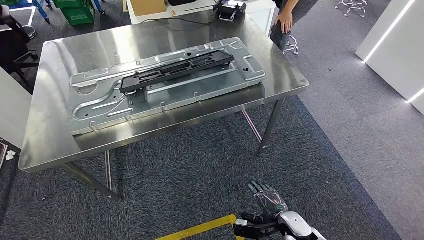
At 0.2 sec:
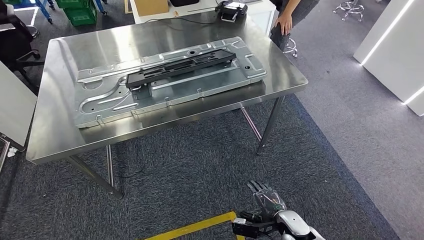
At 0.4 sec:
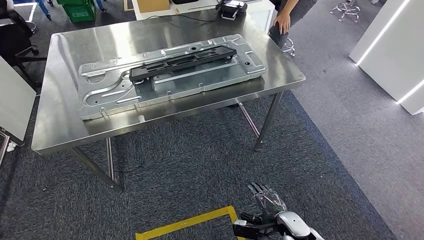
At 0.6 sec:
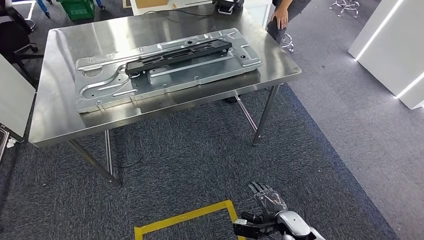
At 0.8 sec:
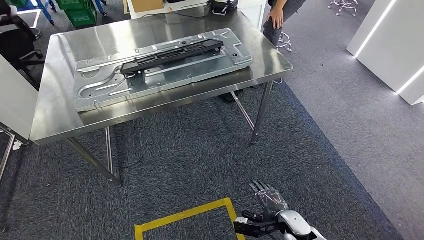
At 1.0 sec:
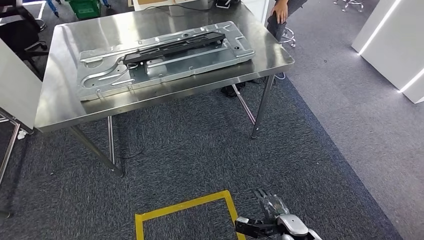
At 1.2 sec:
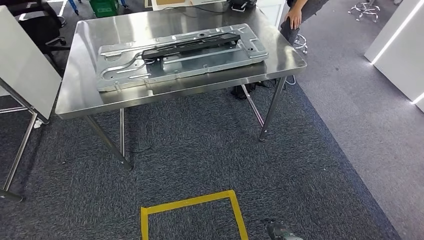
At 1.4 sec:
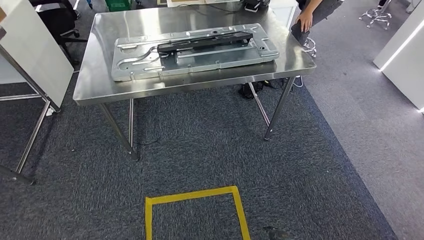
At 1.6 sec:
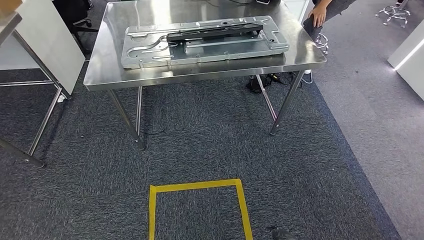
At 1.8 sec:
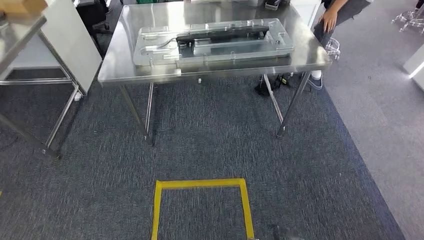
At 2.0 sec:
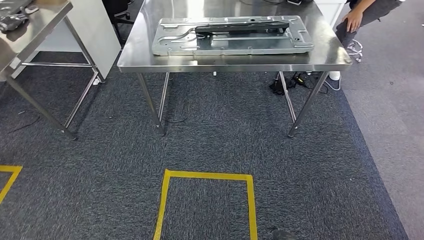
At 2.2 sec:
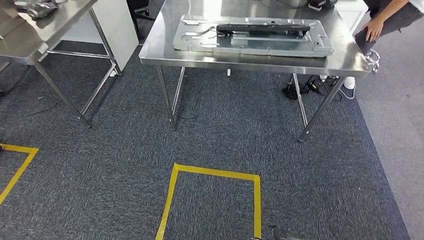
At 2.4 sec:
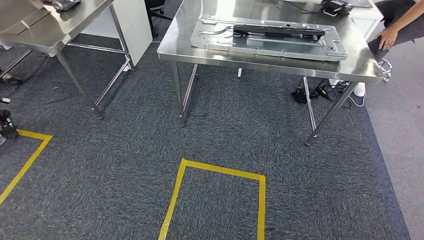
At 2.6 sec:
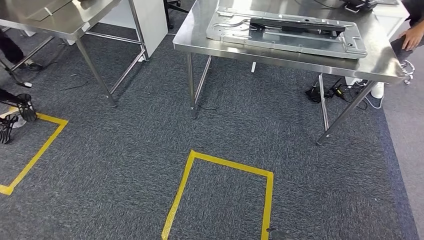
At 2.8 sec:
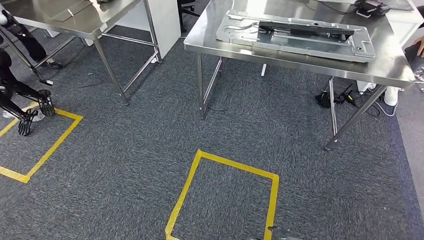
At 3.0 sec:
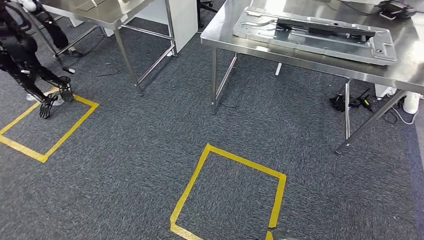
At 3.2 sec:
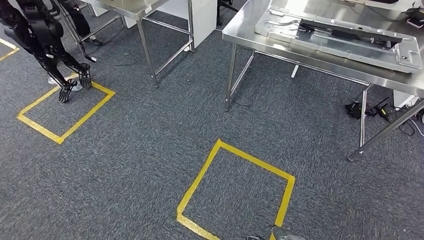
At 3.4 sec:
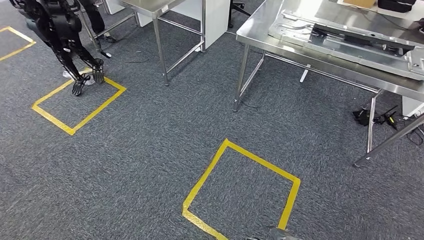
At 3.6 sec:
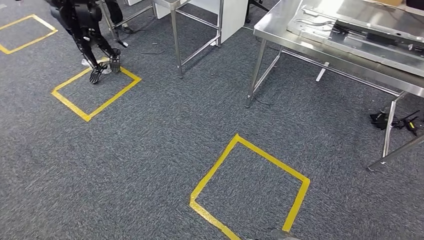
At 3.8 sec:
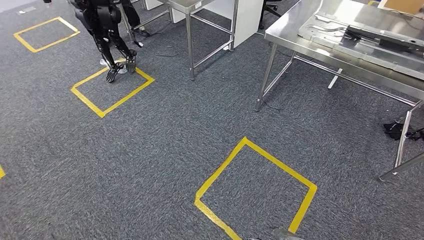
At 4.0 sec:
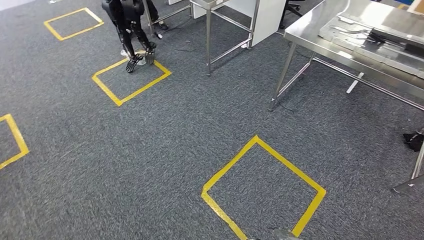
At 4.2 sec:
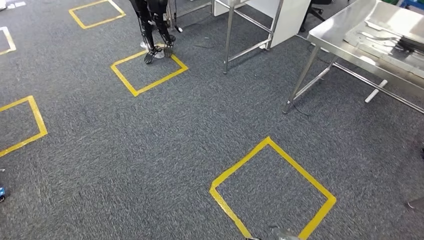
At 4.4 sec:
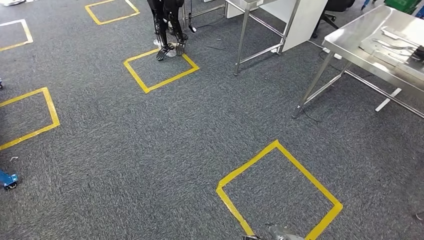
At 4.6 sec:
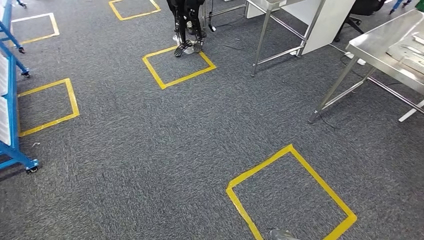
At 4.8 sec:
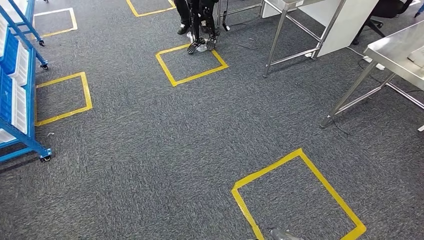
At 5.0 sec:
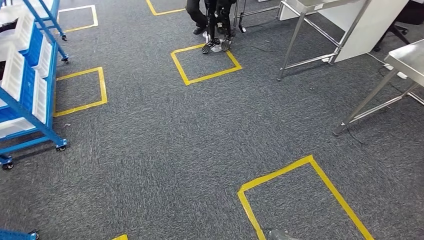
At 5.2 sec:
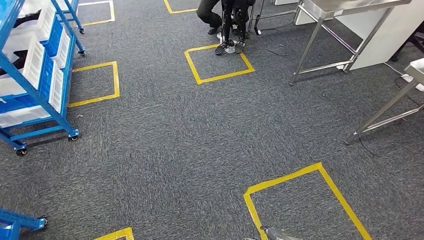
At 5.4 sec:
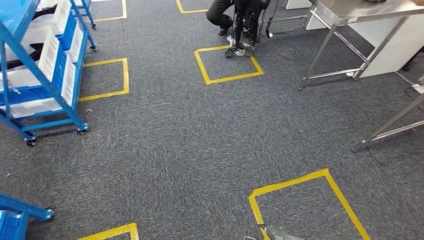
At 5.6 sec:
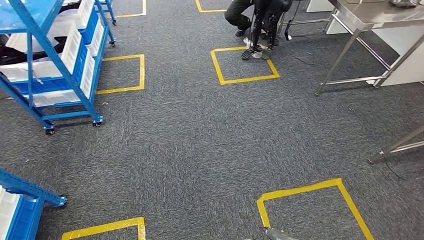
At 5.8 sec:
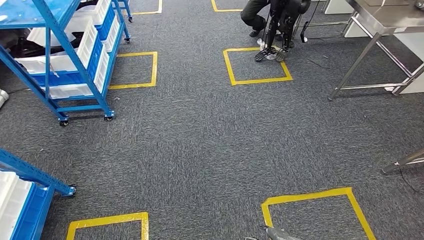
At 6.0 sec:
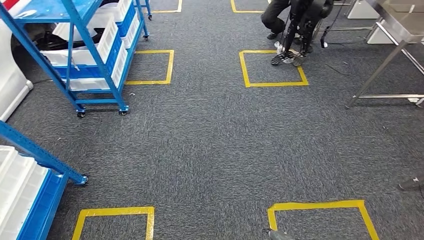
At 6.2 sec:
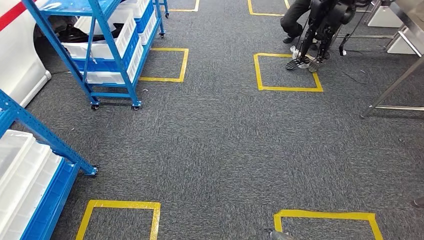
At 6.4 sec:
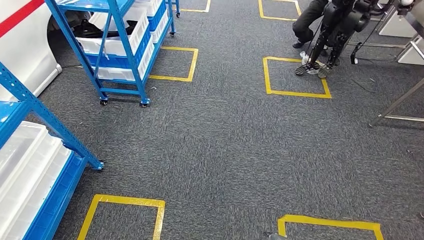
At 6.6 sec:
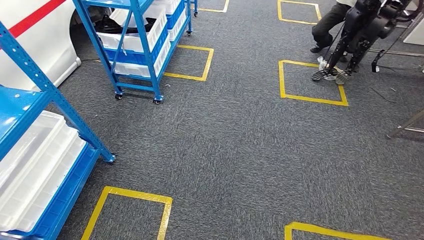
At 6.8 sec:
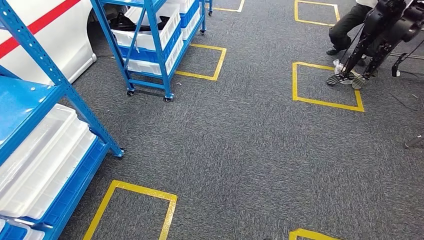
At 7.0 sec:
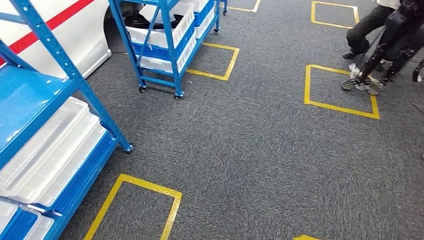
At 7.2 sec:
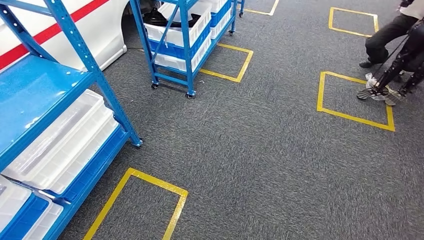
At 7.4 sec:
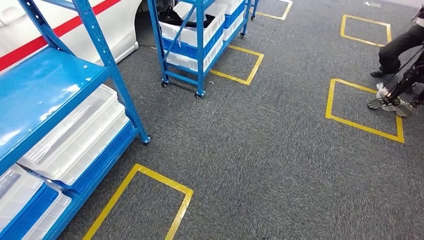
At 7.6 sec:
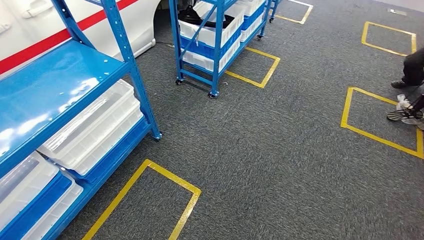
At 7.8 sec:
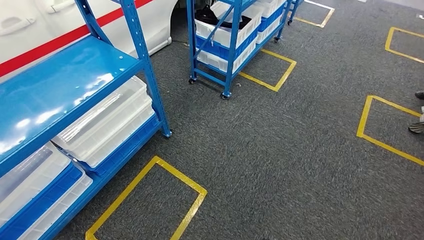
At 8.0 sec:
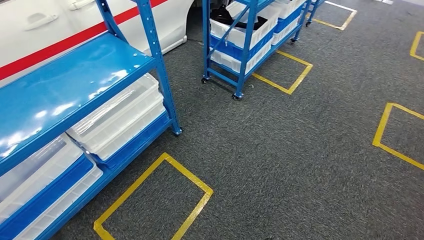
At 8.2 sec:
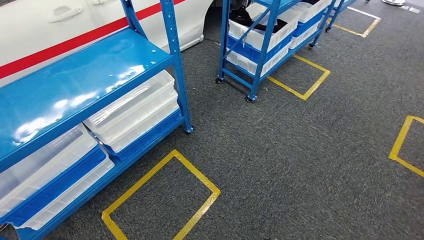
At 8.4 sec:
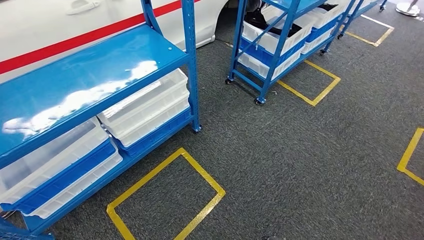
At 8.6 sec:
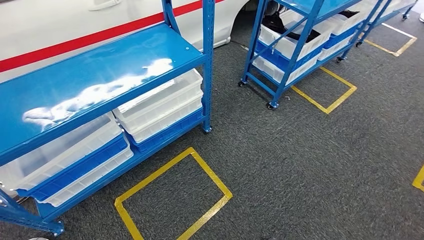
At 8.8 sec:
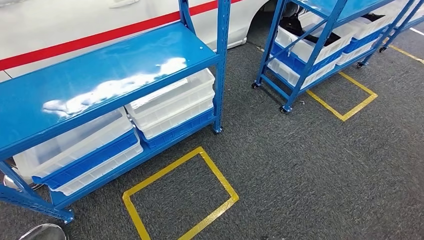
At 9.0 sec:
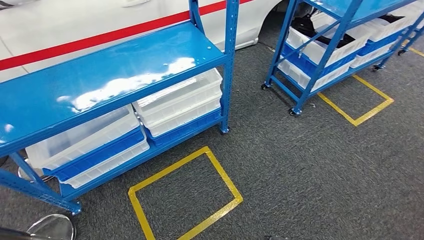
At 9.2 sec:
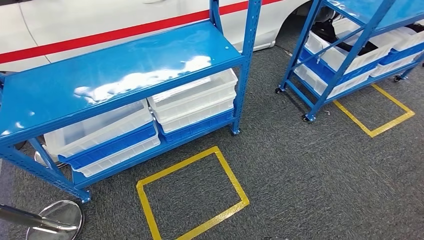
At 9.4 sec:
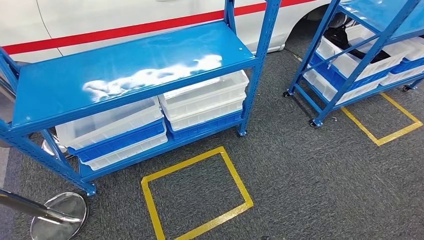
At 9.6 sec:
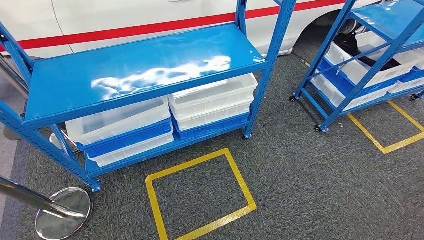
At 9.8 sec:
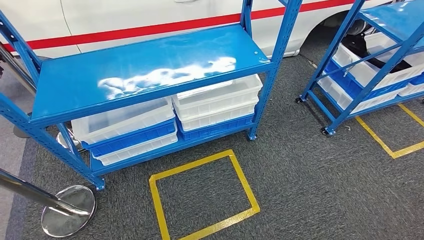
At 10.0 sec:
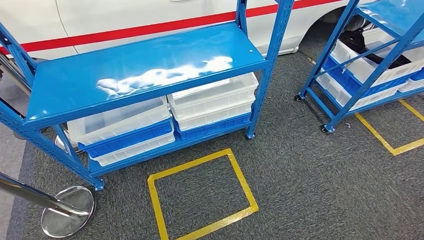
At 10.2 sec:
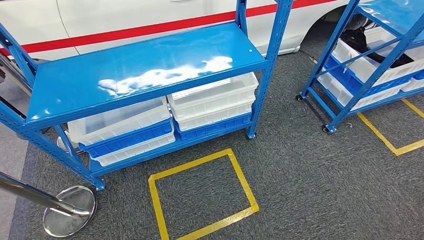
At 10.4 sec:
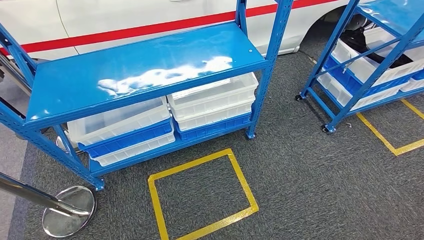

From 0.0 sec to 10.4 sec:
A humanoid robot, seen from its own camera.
Step, from 0.6 sec to 10.4 sec: Move to the initial position of the shelf.
